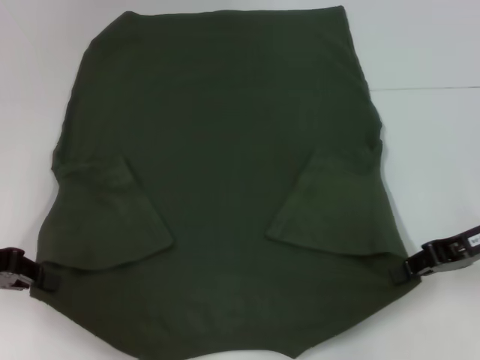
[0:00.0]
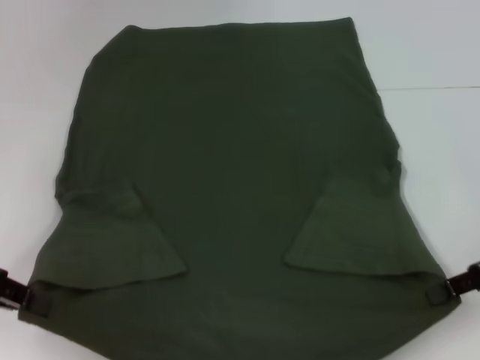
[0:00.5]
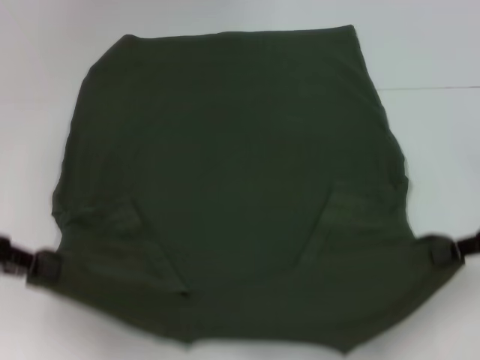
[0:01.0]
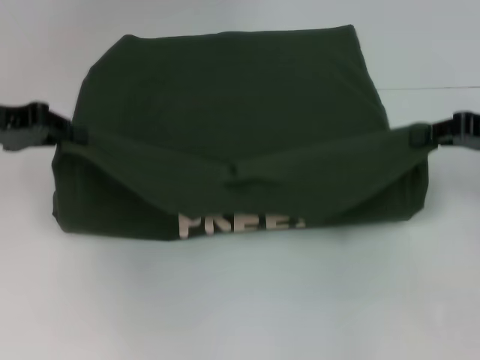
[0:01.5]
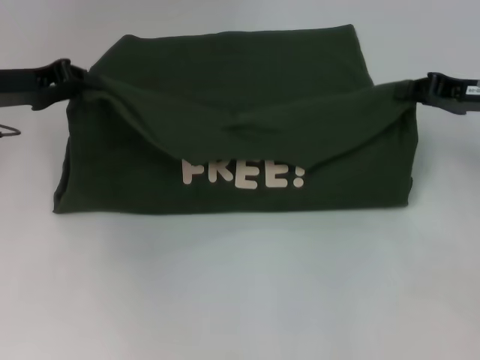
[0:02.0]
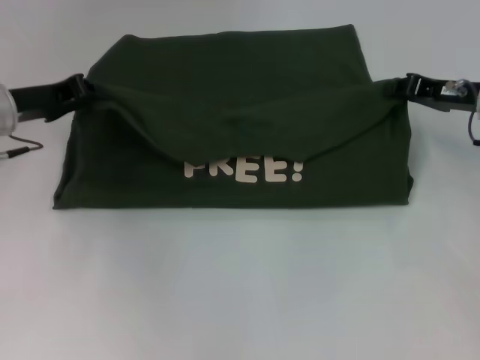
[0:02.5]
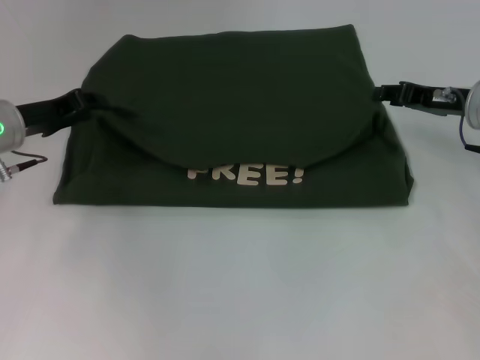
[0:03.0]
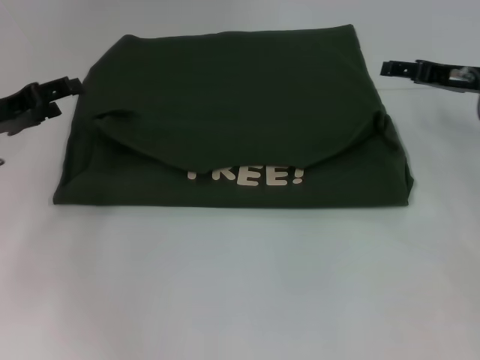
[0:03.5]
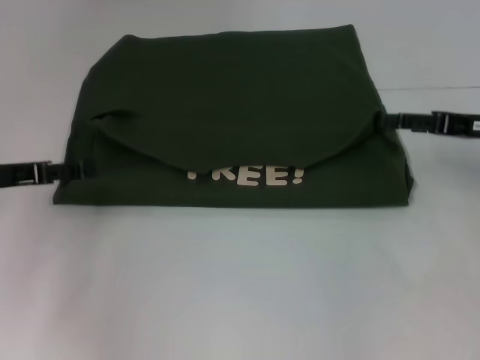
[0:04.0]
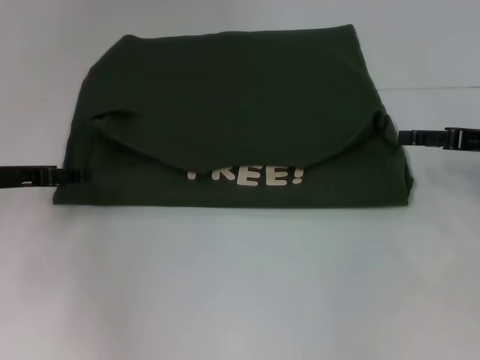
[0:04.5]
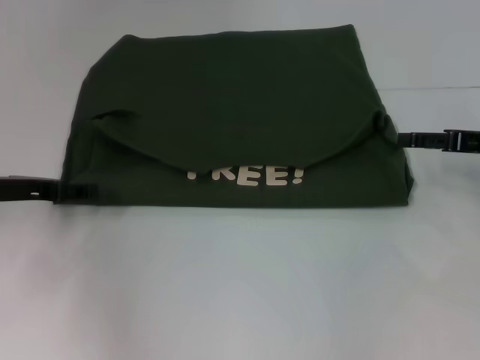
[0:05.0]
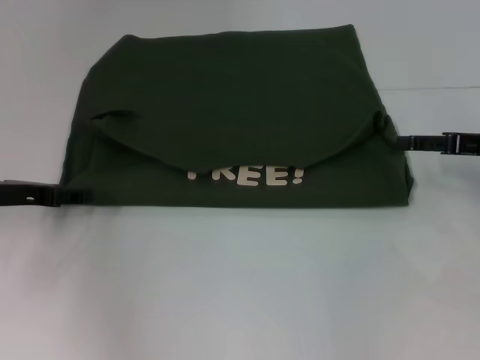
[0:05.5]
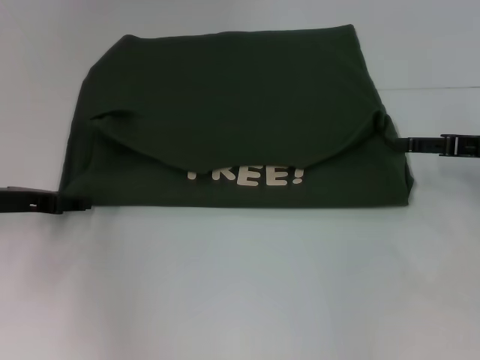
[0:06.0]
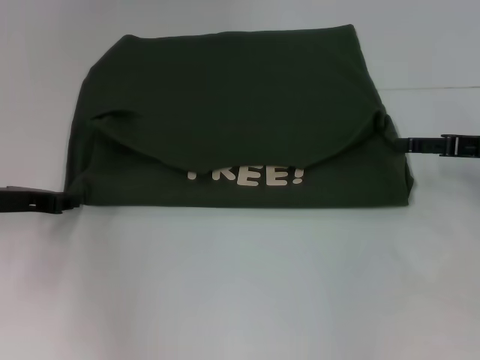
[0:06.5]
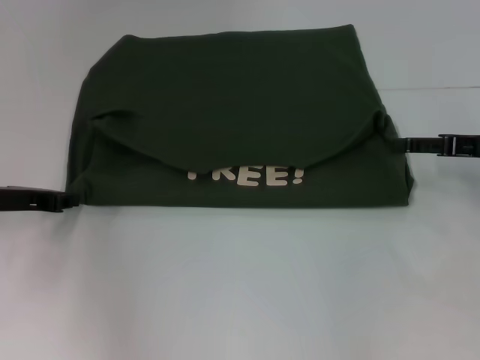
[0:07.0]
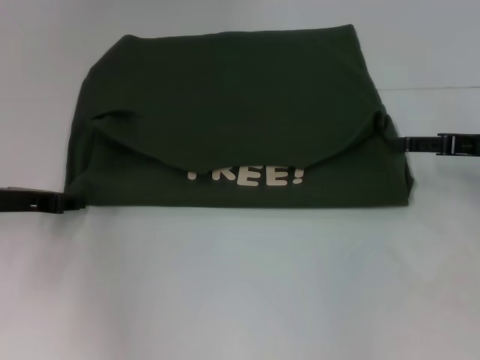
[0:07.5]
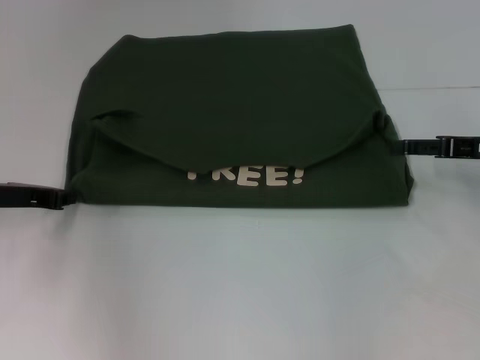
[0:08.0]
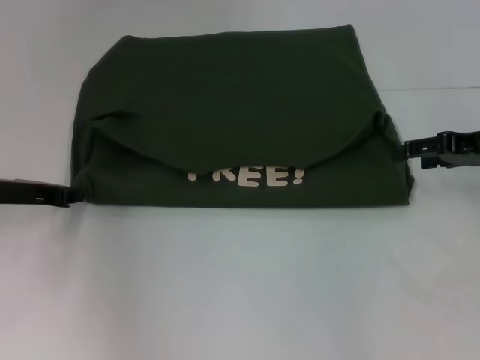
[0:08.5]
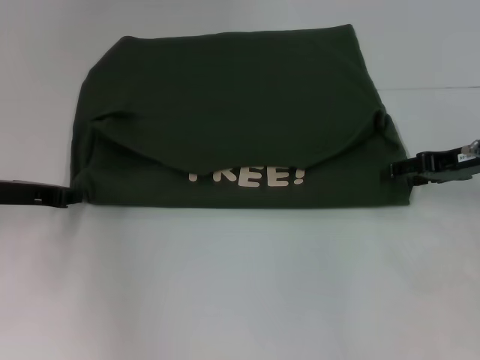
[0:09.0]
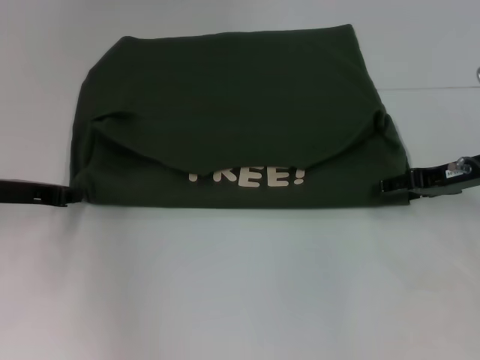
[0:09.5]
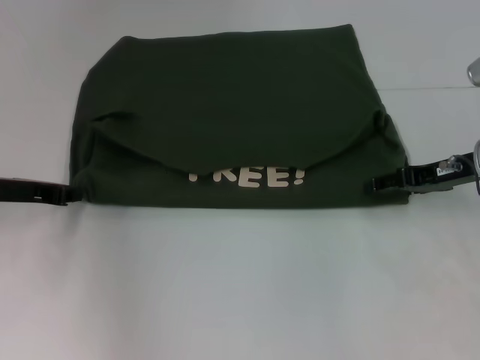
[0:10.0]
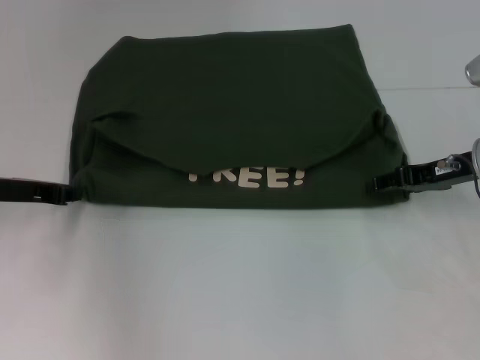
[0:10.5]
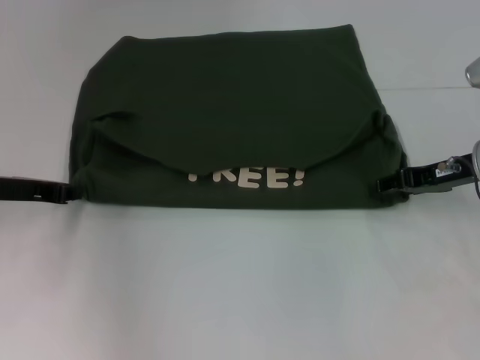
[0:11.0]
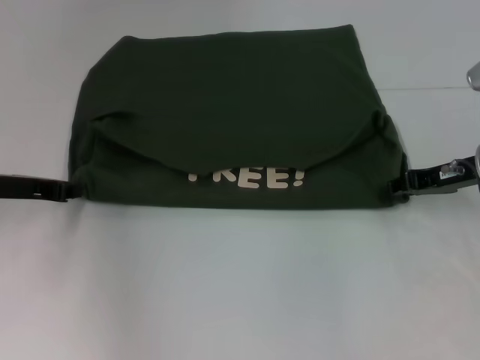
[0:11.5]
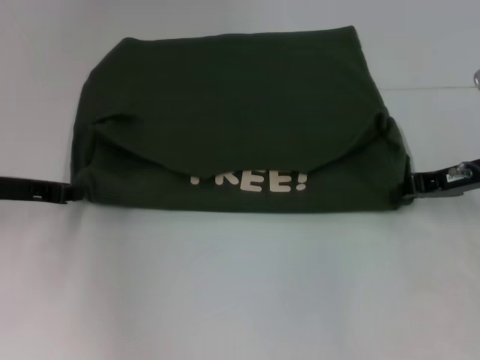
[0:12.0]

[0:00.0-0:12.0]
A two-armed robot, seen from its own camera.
Step, 0:00.0 to 0:03.0: Fold the clothes with your left hand.
Step, 0:00.0 to 0:03.0: Fold the clothes with your right hand.
0:00.0 to 0:02.0: Both grippers travel together forward, about 10 cm.
0:02.0 to 0:04.0: The right gripper opens. Meanwhile the left gripper shifts roughly 10 cm backward and downward, and opens its fingers.
0:04.0 to 0:06.0: The grippers move only a little.
0:06.0 to 0:08.0: The left gripper closes up.
0:08.0 to 0:10.0: The grippers move only a little.
0:10.0 to 0:12.0: The right gripper closes its fingers.

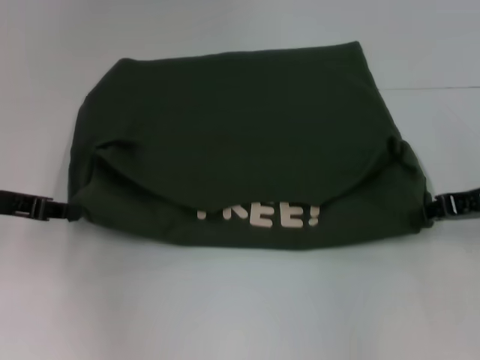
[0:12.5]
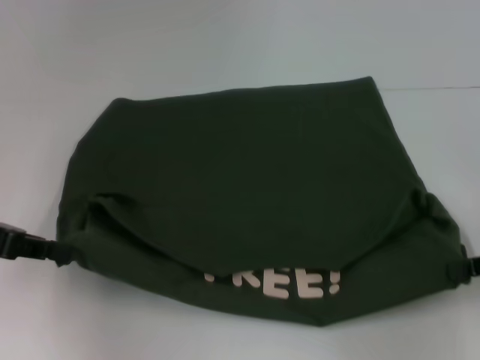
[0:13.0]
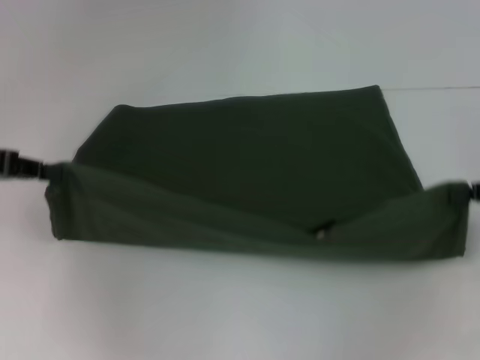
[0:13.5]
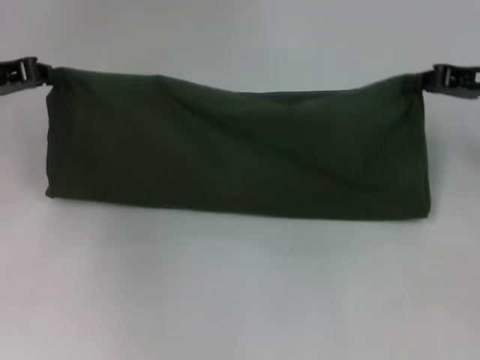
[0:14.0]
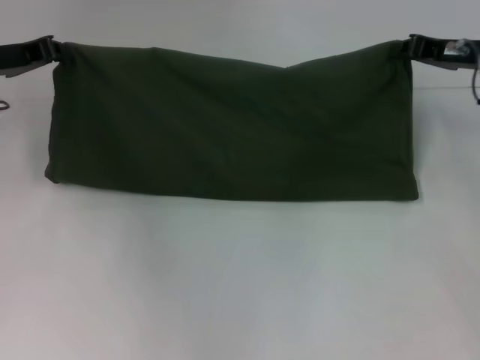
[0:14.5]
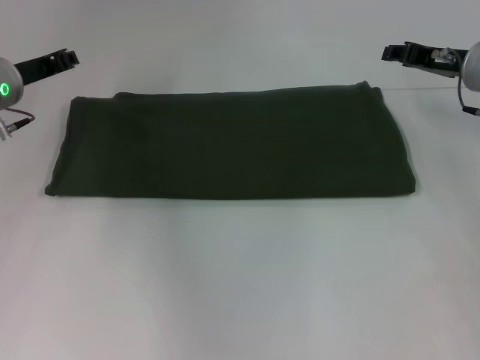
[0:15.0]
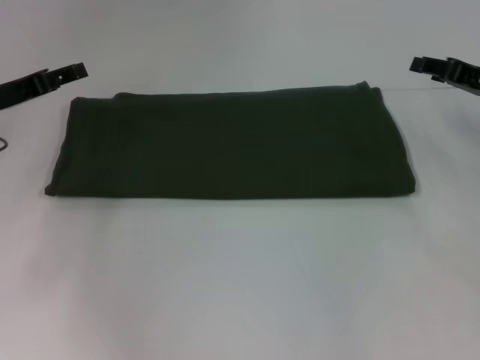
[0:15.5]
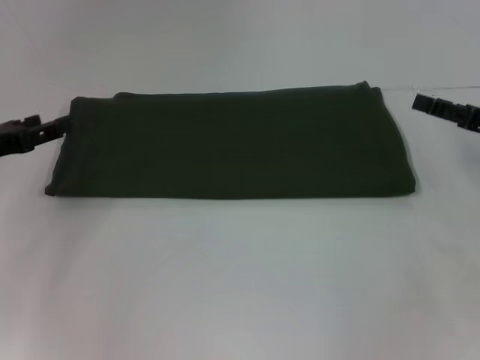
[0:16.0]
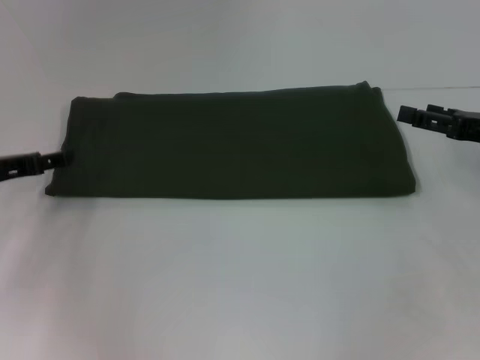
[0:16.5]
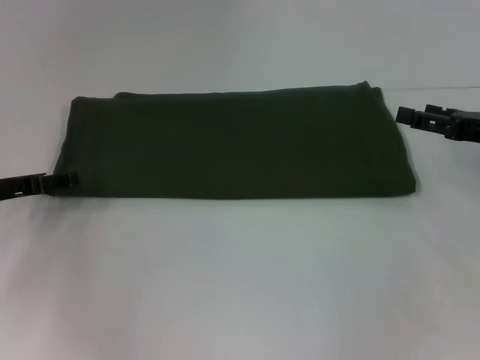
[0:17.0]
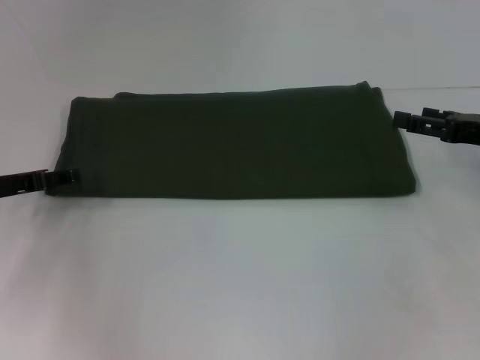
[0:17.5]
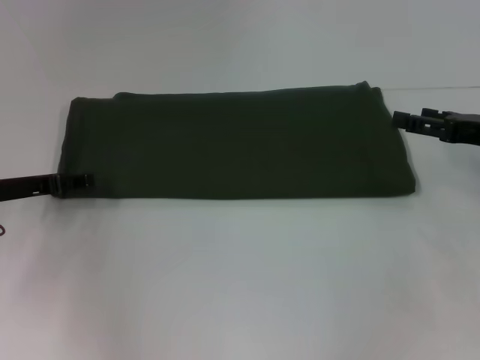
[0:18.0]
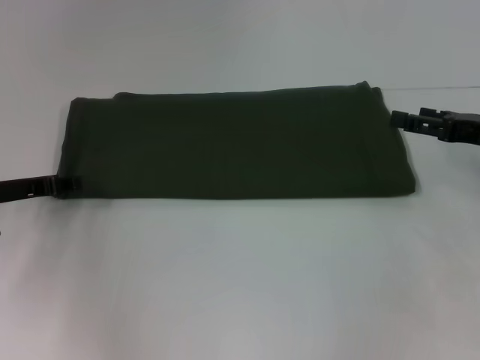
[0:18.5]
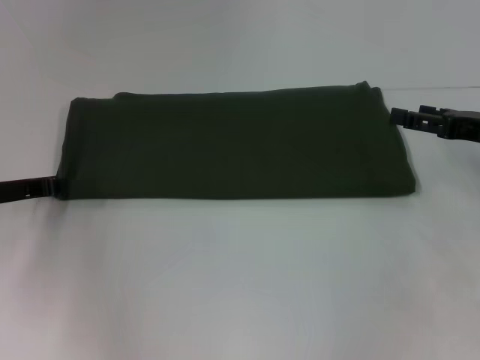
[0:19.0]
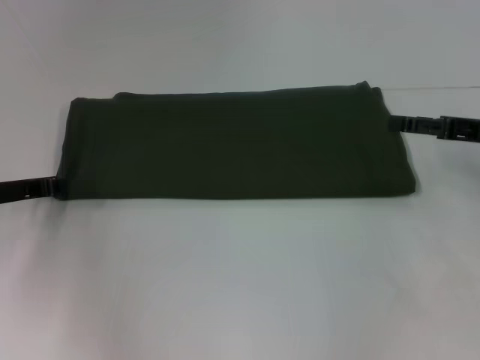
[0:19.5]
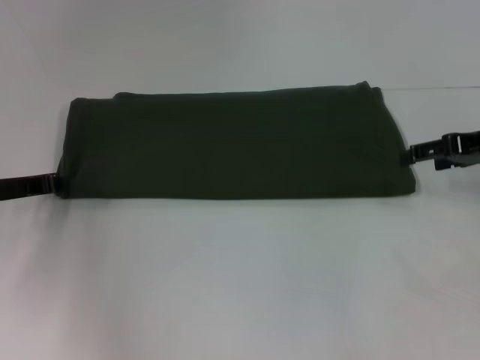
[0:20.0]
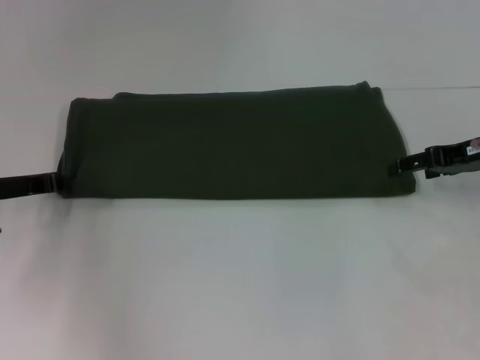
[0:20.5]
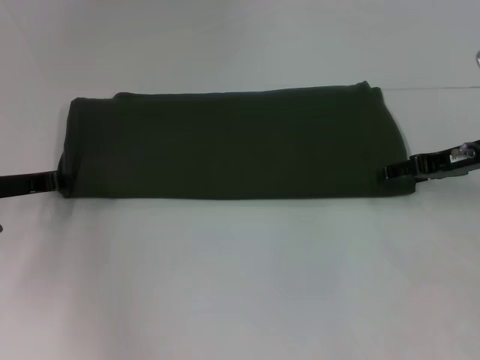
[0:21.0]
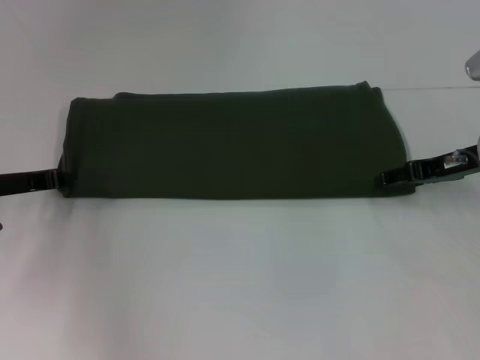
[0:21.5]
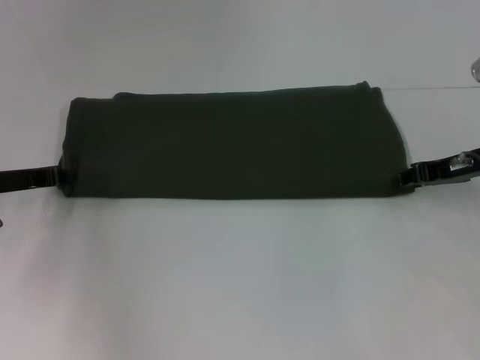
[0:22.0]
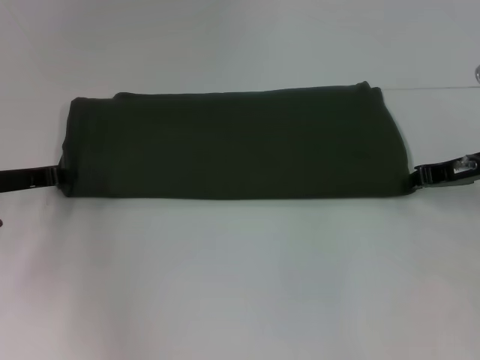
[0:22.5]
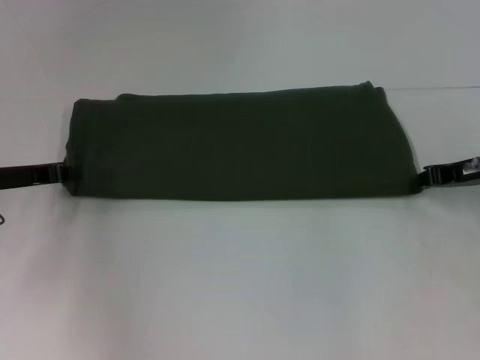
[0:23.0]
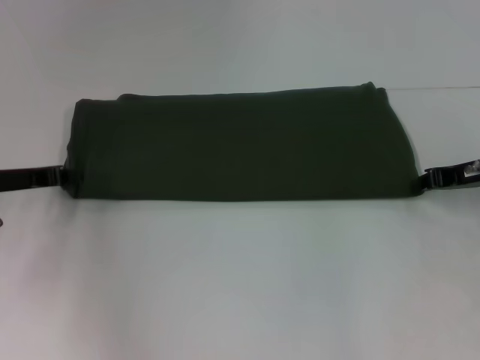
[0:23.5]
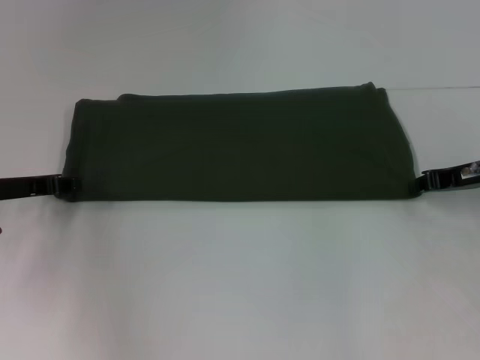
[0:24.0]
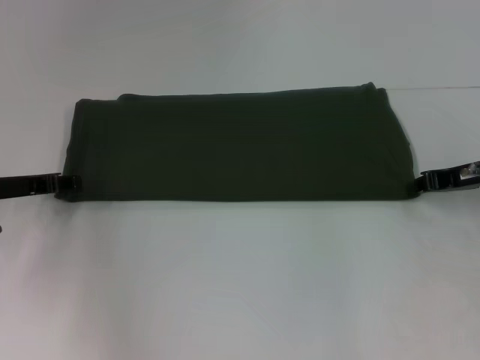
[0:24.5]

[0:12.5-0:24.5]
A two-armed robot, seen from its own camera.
Step, 0:13.5 to 0:14.5: Fold the clothes with your right hand.
0:12.5 to 0:14.5: The two grippers go roughly 10 cm forward.
0:14.5 to 0:16.5: The right gripper goes approximately 10 cm backward and to the right, and opens its fingers; the left gripper heads downward and backward, covering roughly 10 cm, and opens its fingers.
0:16.5 to 0:18.5: The grippers move only a little.
0:20.5 to 0:22.5: The right gripper closes up.
0:22.5 to 0:24.5: The left gripper opens its fingers.

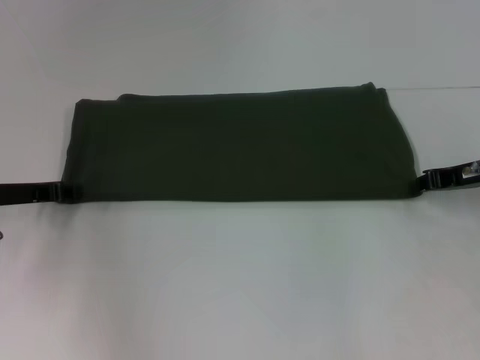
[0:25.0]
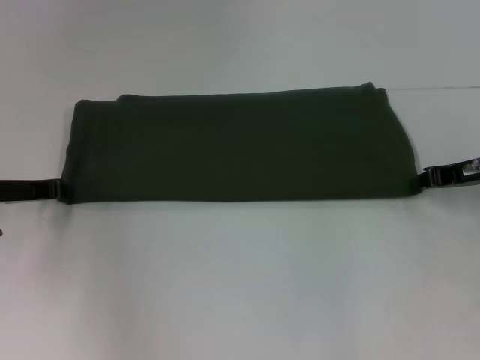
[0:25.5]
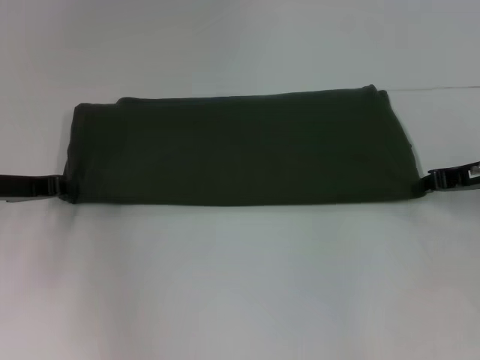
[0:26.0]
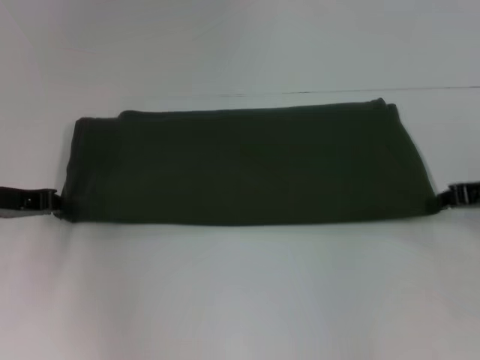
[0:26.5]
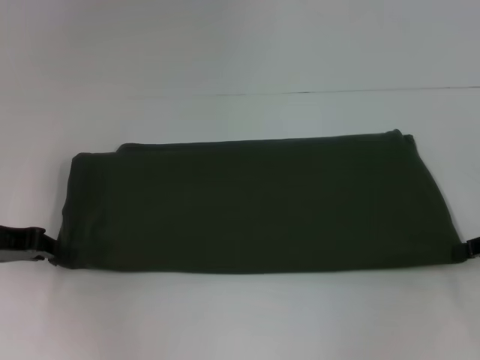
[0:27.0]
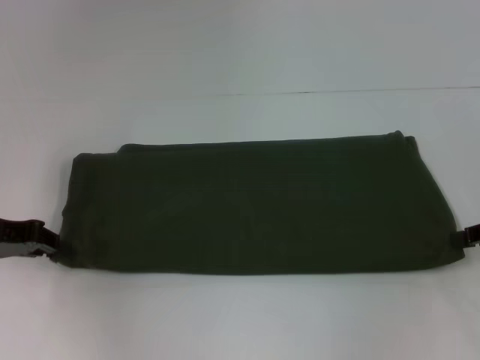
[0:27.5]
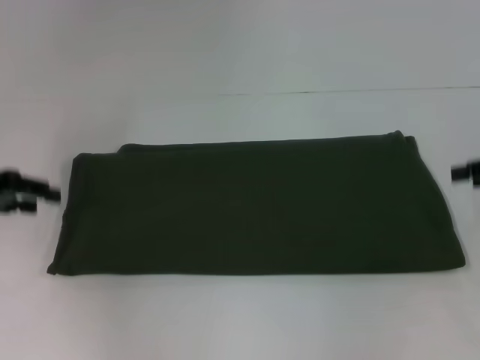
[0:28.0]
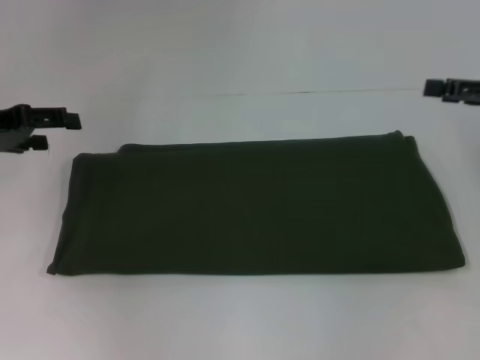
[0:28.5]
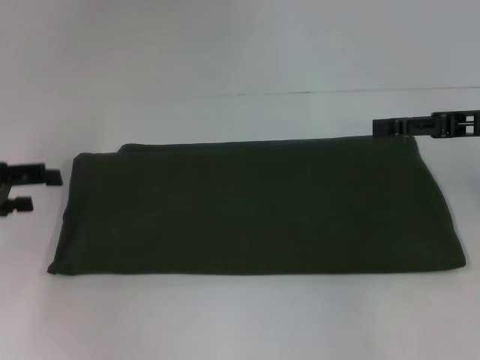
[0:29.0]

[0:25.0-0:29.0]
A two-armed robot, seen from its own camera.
0:25.0 to 0:27.0: The left gripper ends up about 5 cm from where it was, and closes. Meanwhile the right gripper moves backward and to the right, approximately 10 cm.
0:27.0 to 0:29.0: The right gripper goes about 10 cm upward and forward, and opens its fingers, while the left gripper opens.
